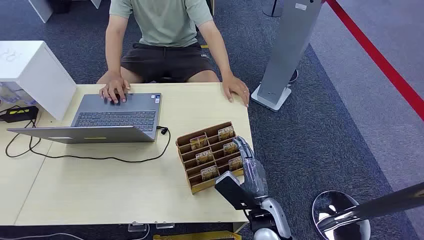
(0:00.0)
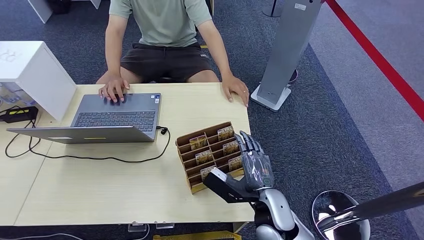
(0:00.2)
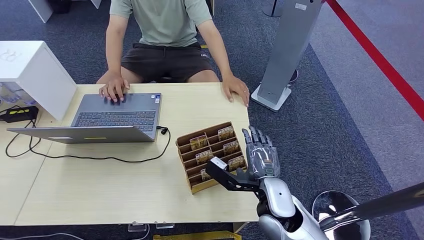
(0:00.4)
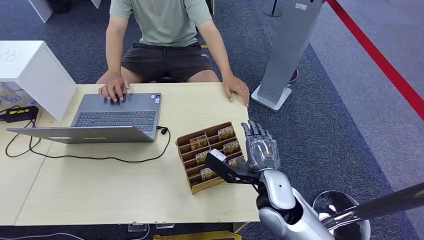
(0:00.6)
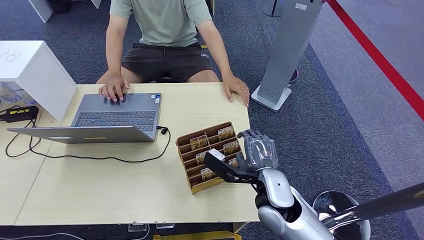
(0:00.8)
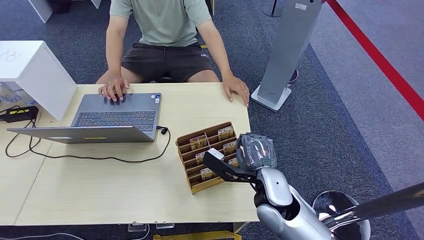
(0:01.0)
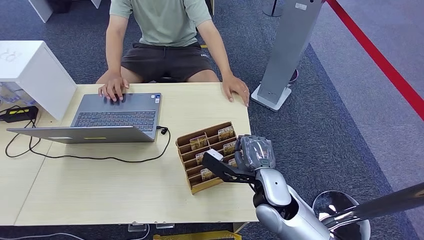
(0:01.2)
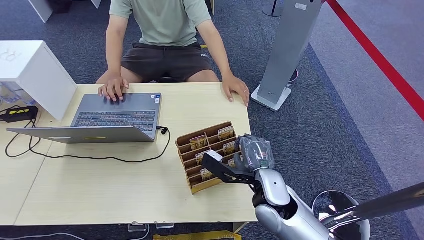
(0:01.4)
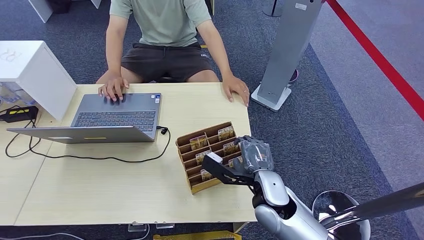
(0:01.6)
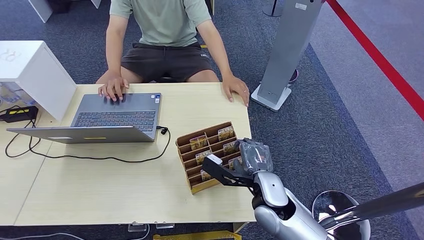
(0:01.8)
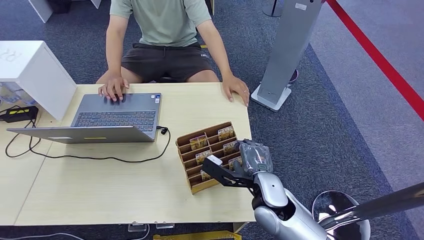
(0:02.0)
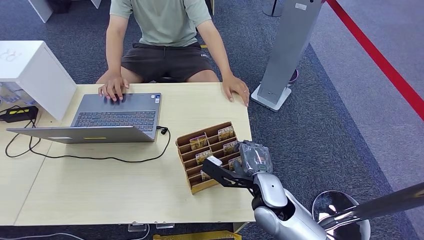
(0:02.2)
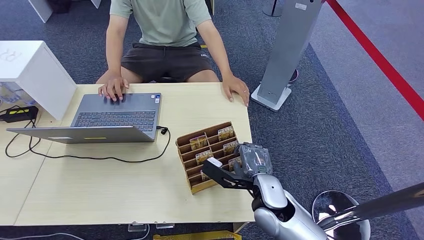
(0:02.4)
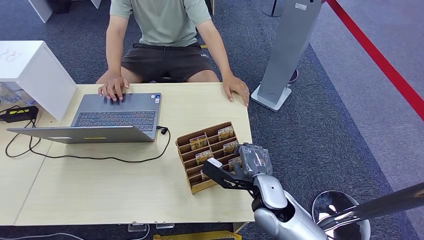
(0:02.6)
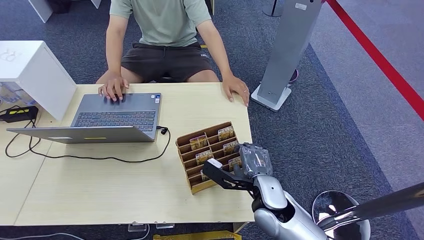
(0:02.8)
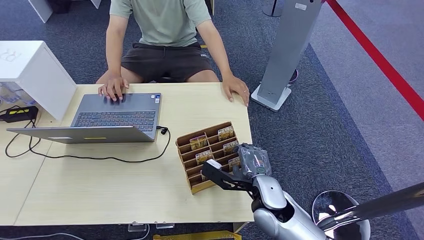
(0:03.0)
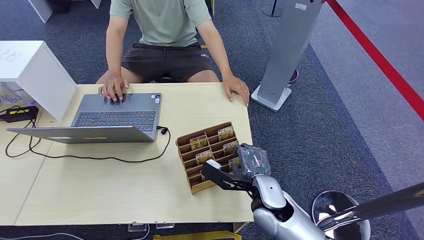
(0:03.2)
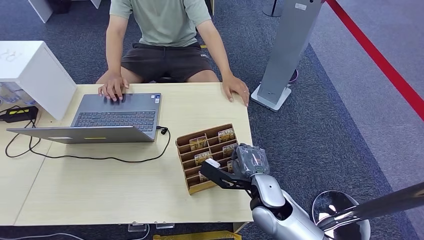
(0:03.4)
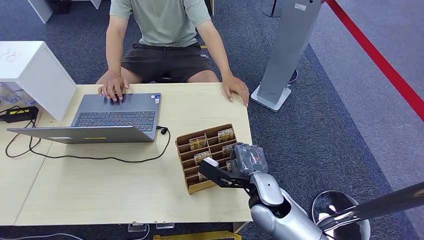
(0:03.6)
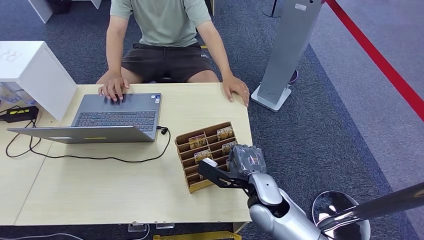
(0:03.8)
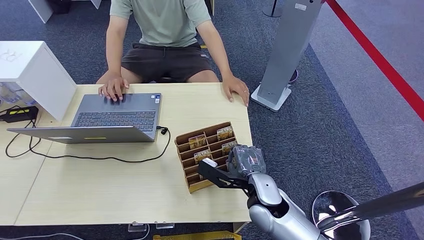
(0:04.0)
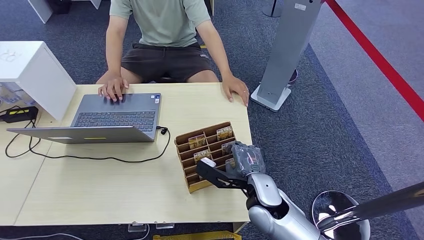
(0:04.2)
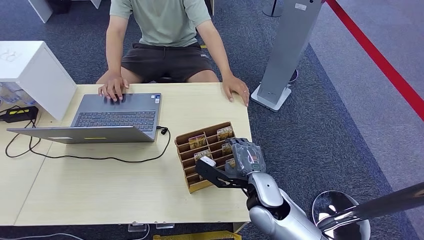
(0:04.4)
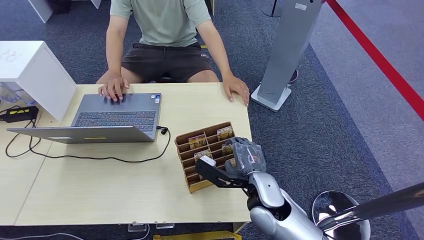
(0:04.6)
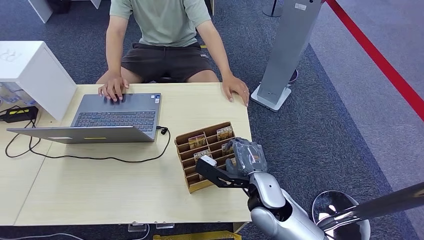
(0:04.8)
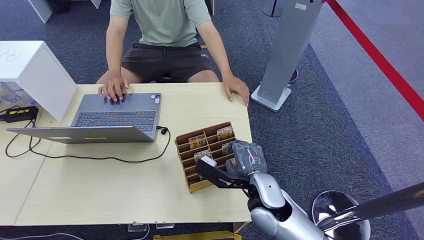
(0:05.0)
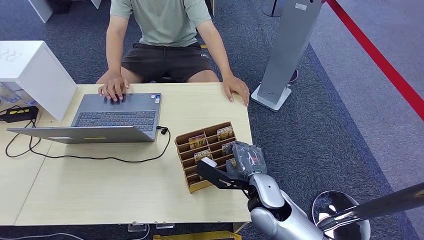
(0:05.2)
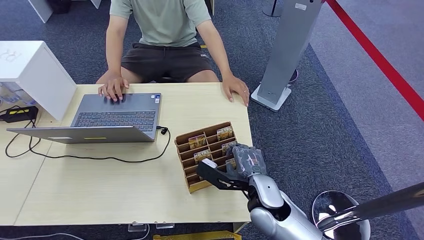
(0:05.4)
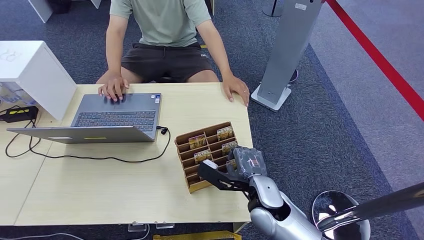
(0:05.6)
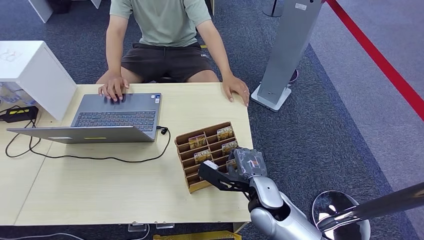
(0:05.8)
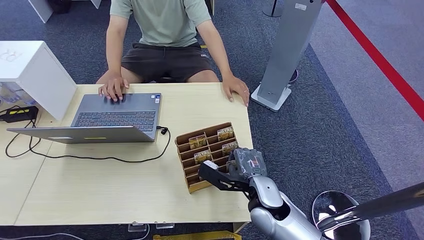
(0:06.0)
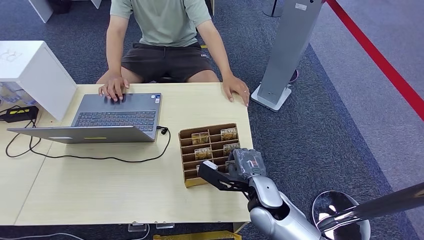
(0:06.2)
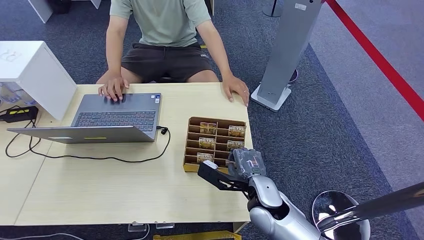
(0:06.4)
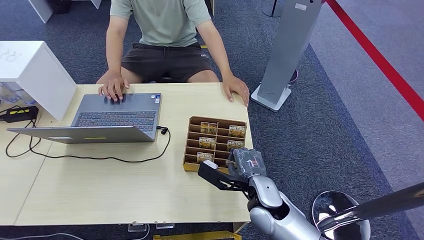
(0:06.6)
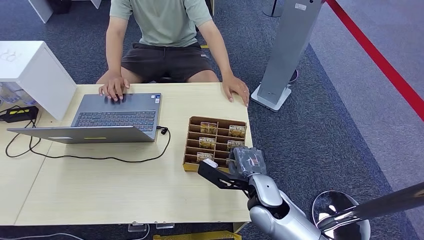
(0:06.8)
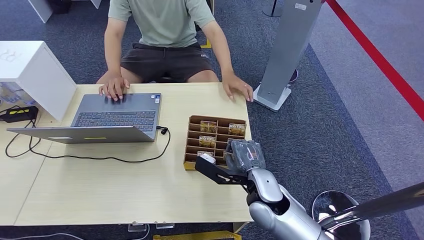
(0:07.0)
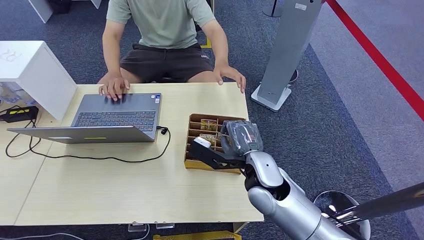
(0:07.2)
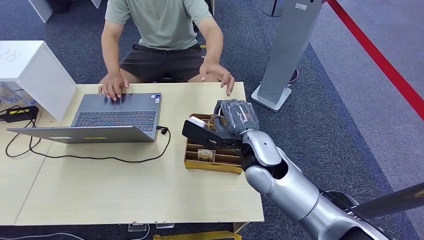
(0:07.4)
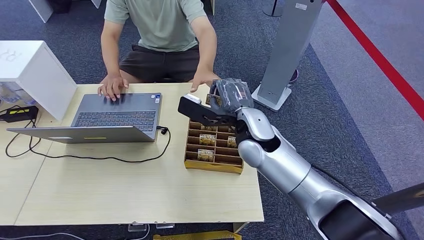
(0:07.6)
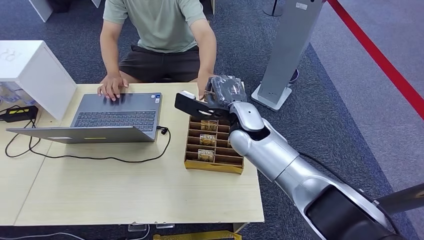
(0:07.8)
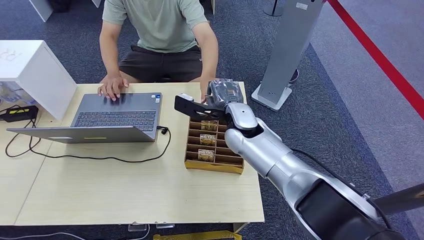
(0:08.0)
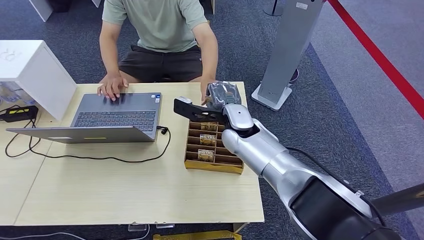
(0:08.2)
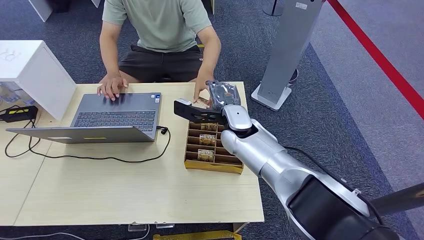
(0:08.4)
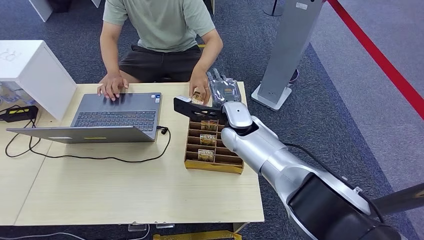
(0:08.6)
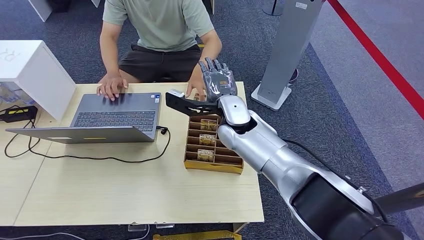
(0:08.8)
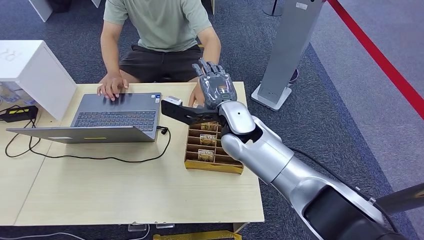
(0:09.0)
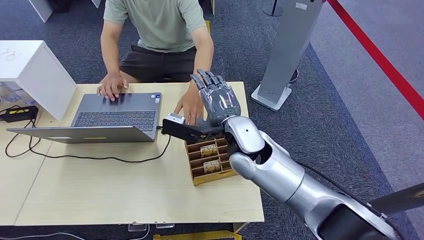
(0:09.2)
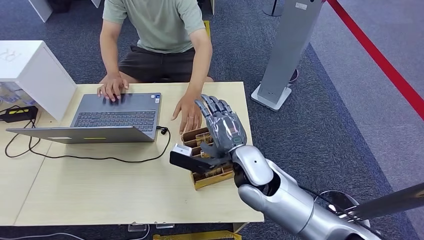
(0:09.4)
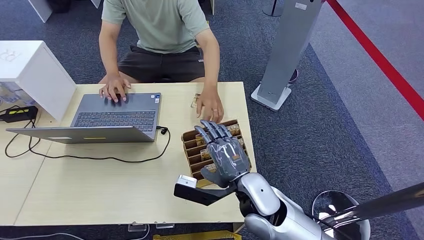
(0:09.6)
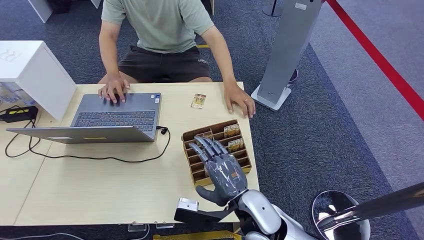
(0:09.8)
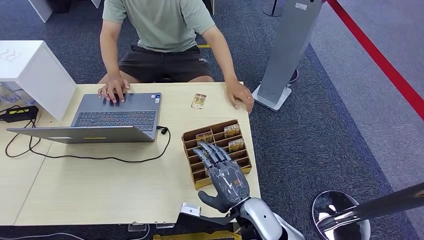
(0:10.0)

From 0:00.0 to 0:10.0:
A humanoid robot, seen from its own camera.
Step, from 0:00.0 to 0:07.0: Pick up the key card from the card box.
Step, from 0:07.2 to 0:10.0: Hand the key card to the target.
From 0:01.4 to 0:02.8: The hands make only small movements.
From 0:02.8 to 0:04.2: Neither hand changes place.
From 0:04.2 to 0:05.8: There are only small adjustments of the hands.
From 0:05.8 to 0:07.2: The right hand heads upward, covering approximately 5 cm.
From 0:07.2 to 0:08.6: The right hand heads forward and to the left, covering approximately 15 cm.
From 0:08.6 to 0:10.0: The right hand moves backward and downward, about 25 cm.
